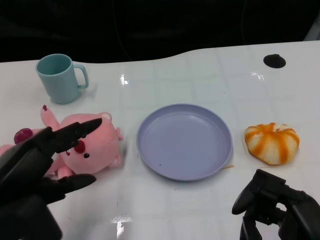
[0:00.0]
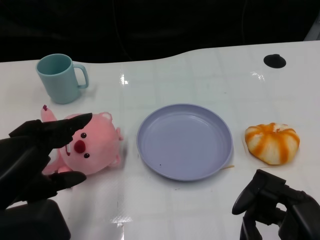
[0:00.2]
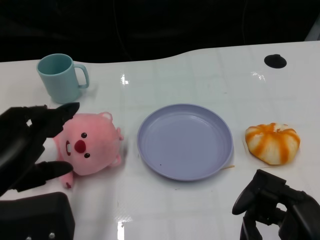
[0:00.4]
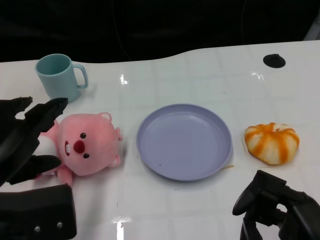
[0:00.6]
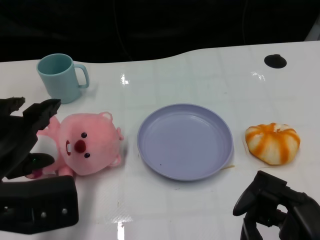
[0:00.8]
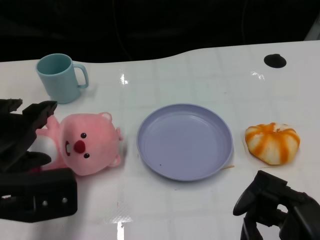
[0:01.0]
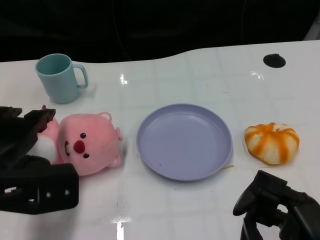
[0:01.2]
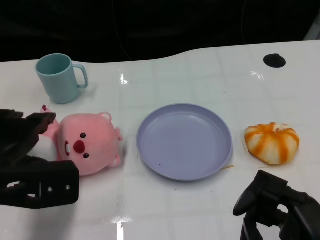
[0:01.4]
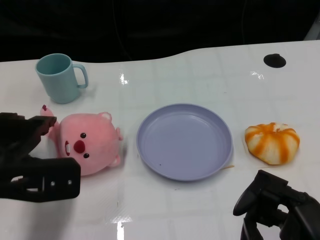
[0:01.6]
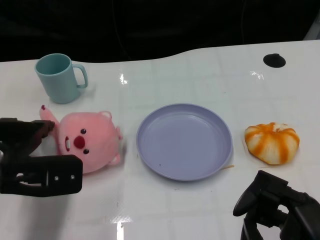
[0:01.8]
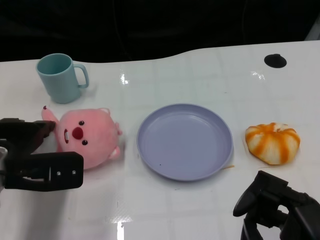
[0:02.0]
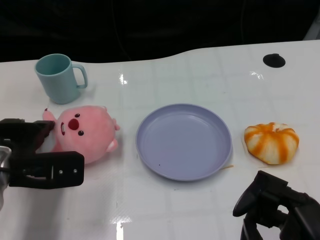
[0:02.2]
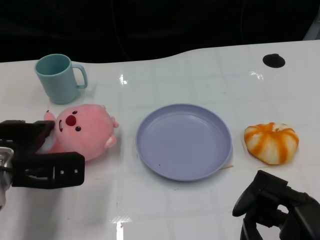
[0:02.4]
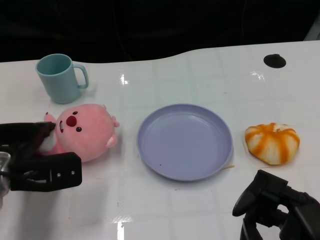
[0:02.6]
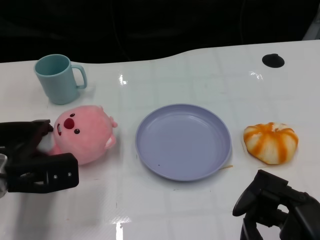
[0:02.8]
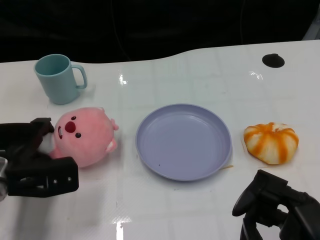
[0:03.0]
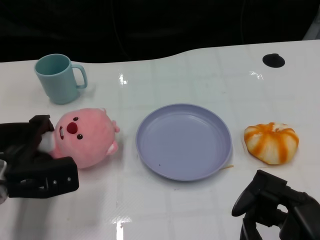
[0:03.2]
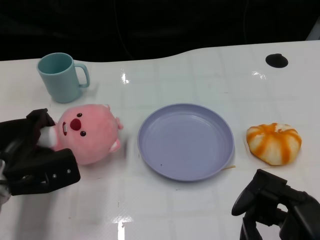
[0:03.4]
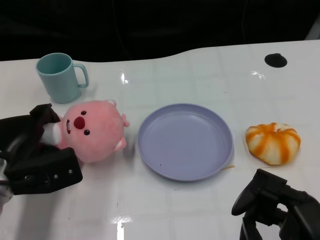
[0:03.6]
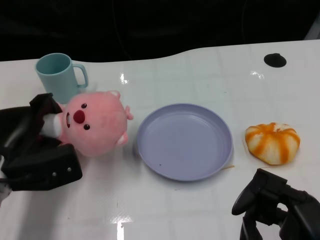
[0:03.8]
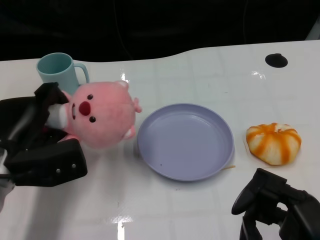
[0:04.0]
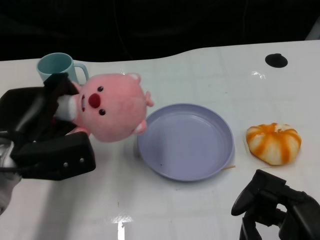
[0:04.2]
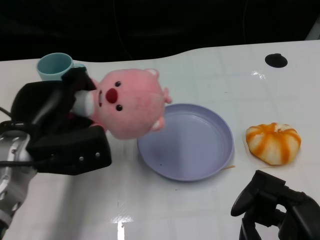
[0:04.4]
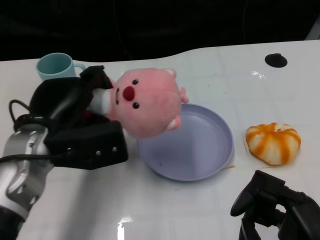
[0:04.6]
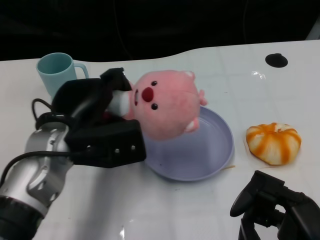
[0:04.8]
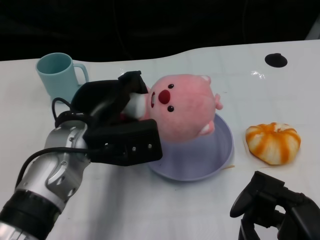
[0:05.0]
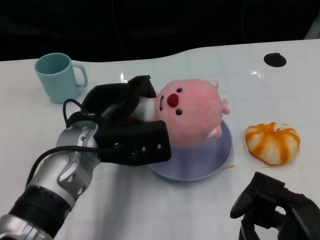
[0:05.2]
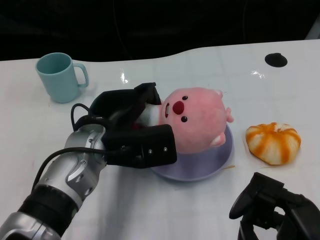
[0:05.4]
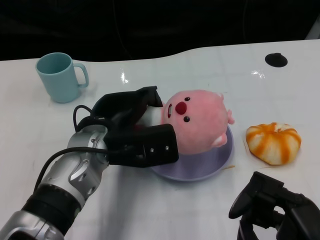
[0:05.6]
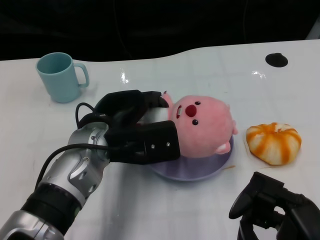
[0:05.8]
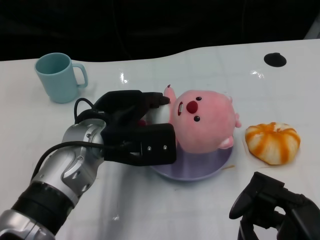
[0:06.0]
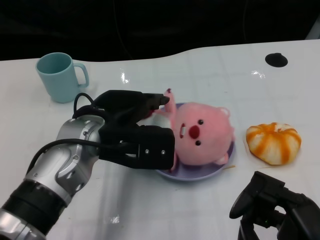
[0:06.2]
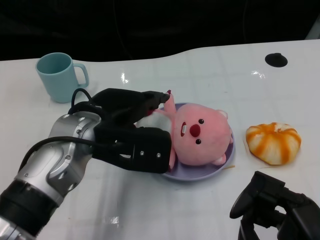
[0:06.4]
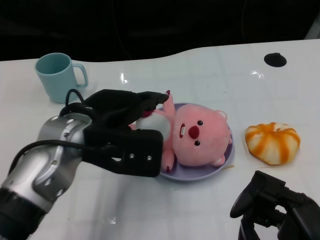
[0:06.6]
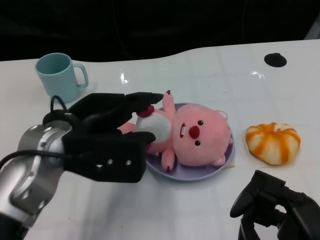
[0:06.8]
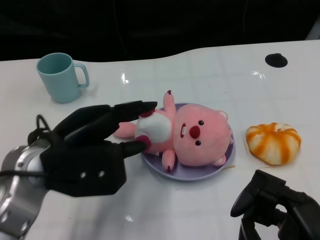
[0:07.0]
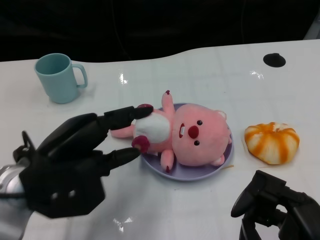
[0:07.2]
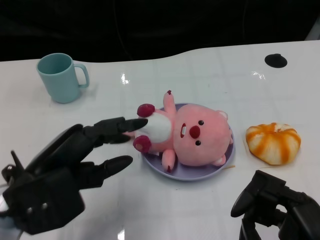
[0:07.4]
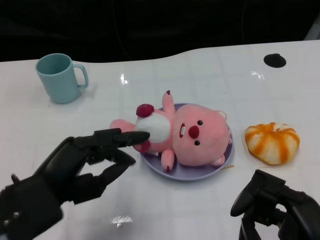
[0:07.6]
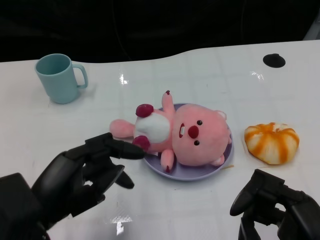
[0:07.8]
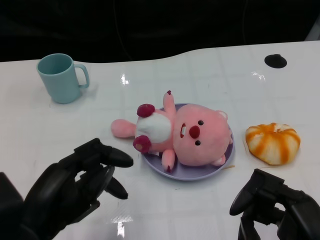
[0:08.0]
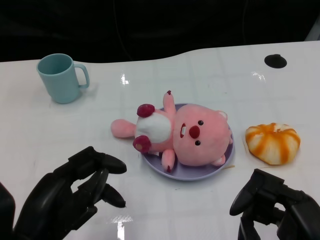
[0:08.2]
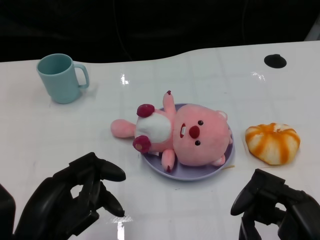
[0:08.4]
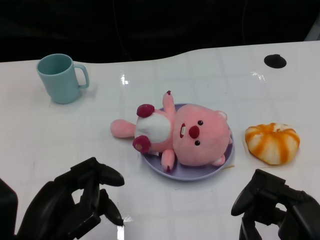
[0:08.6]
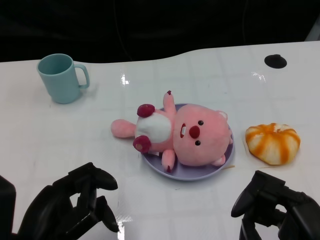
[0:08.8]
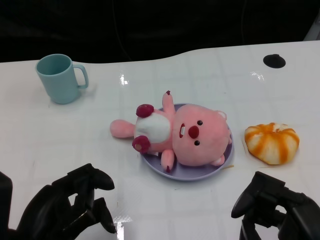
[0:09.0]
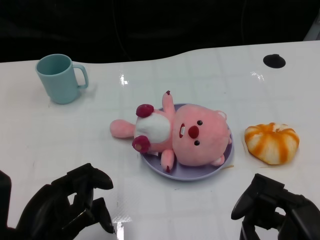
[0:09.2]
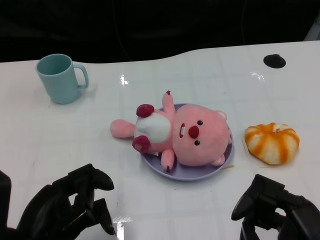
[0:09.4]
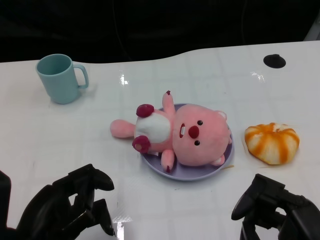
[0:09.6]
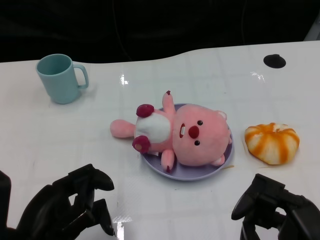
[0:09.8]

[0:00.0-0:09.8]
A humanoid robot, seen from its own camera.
Task of the whole recording: Pick up the doll on one side of the plate and place it into the plate.
Step, 0:00.0 to 0:03.8: Grasp the pink doll with the left gripper.
Step, 0:04.0 to 0:06.2: Place the pink doll into the plate with the left gripper.
0:00.0 to 0:01.4: The left hand shifts about 5 cm forward.
0:01.4 to 0:02.8: The left hand moves downward and forward, about 10 cm.
0:02.8 to 0:04.2: The left hand goes roughly 5 cm upward.
0:04.2 to 0:05.6: The left hand travels to the right by roughly 10 cm.
0:05.6 to 0:07.0: The left hand heads to the left, covering some 5 cm.
0:07.0 to 0:08.4: The left hand shifts about 10 cm backward.
0:08.4 to 0:09.8: The hands move only a little.

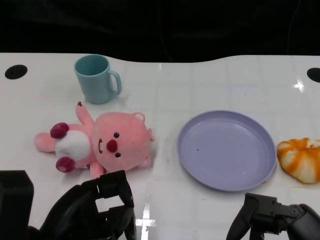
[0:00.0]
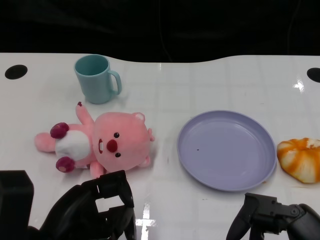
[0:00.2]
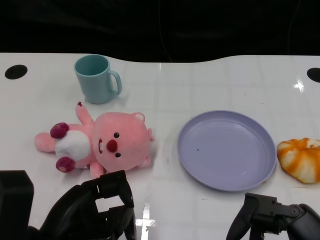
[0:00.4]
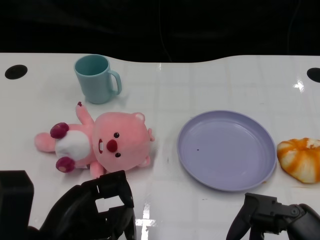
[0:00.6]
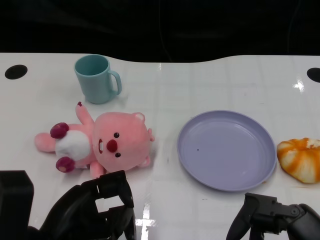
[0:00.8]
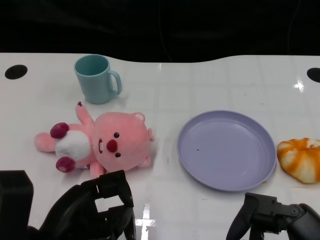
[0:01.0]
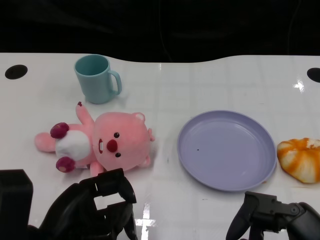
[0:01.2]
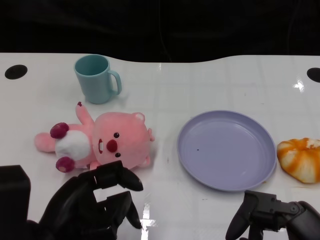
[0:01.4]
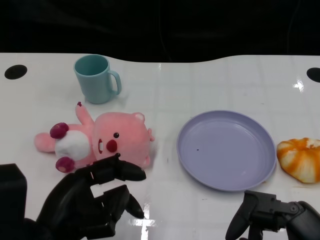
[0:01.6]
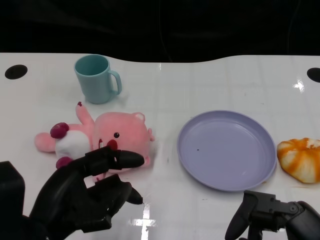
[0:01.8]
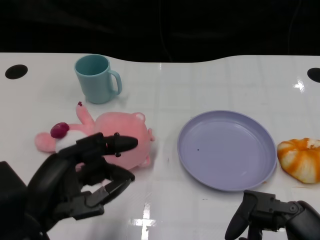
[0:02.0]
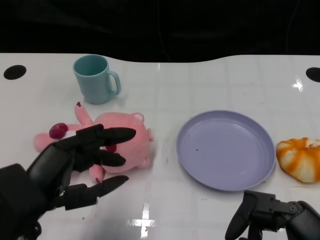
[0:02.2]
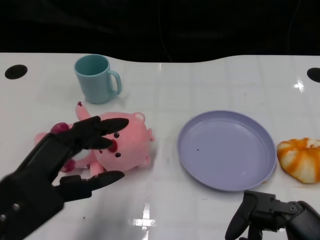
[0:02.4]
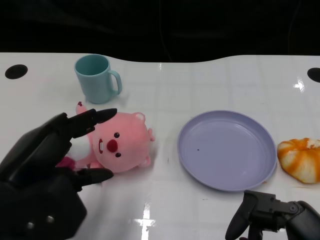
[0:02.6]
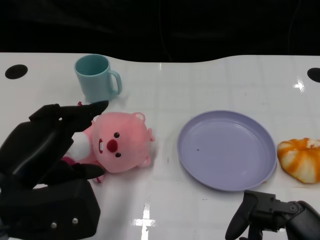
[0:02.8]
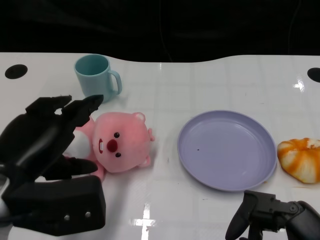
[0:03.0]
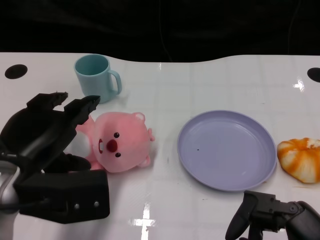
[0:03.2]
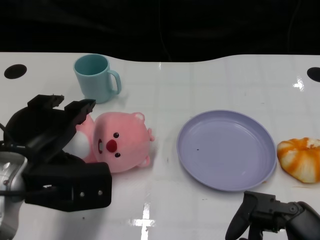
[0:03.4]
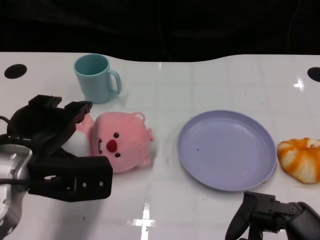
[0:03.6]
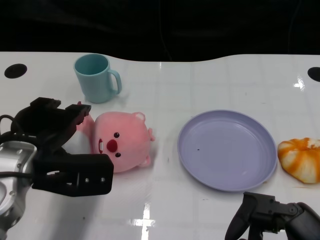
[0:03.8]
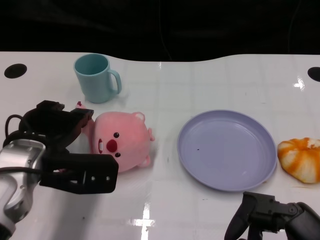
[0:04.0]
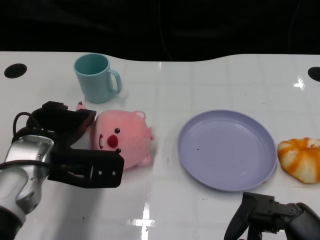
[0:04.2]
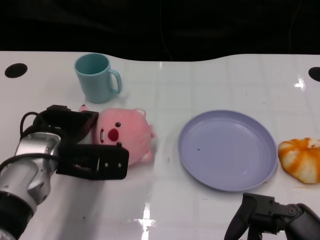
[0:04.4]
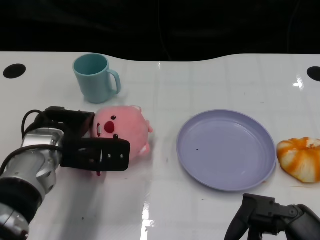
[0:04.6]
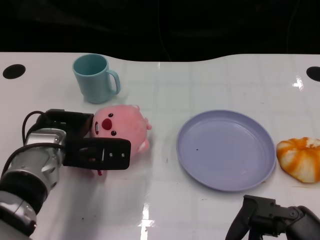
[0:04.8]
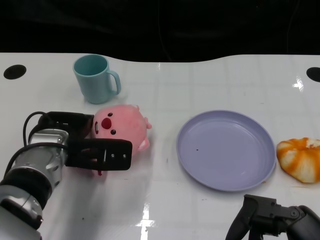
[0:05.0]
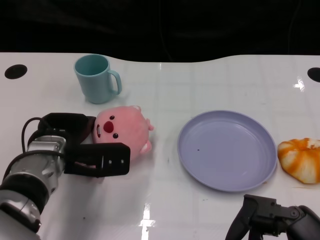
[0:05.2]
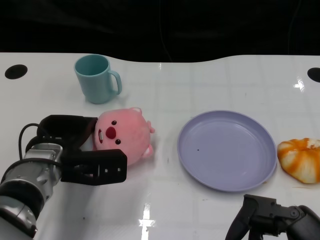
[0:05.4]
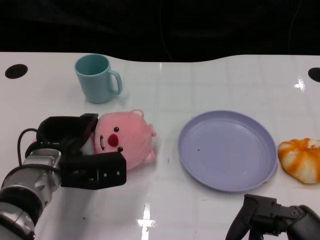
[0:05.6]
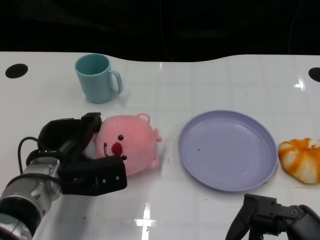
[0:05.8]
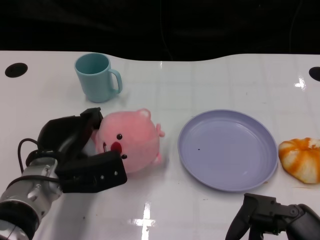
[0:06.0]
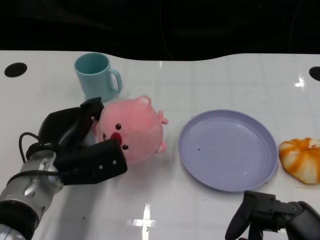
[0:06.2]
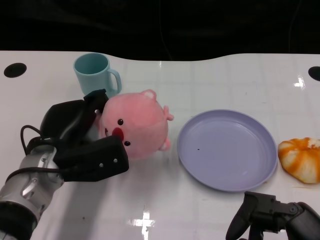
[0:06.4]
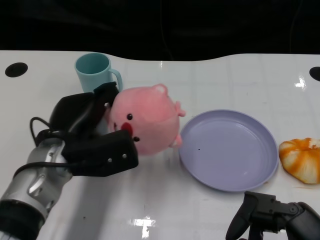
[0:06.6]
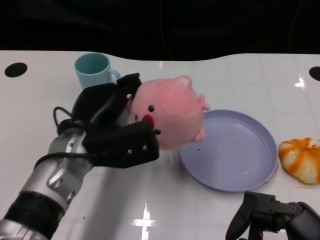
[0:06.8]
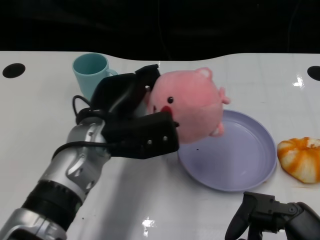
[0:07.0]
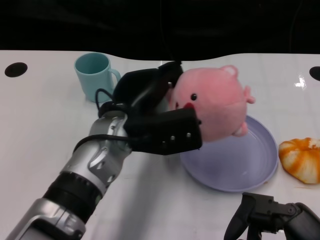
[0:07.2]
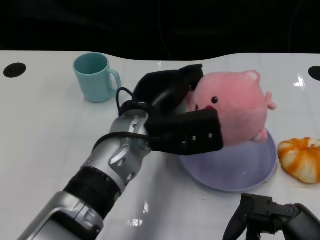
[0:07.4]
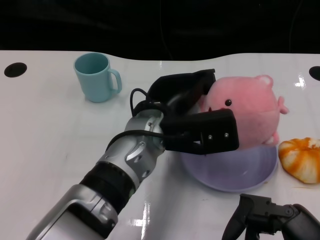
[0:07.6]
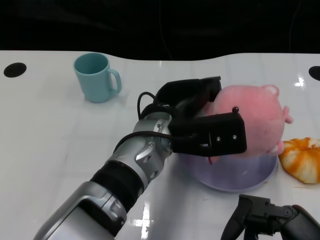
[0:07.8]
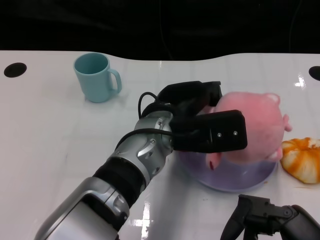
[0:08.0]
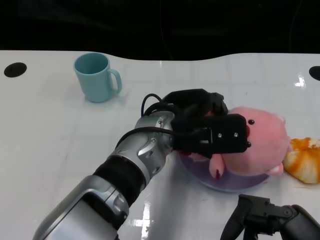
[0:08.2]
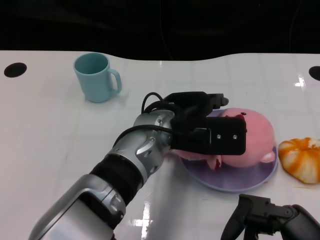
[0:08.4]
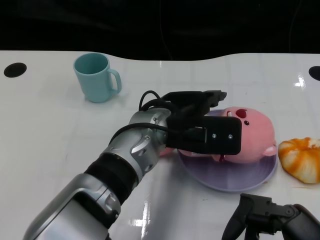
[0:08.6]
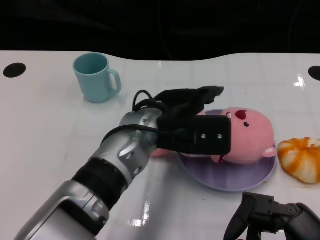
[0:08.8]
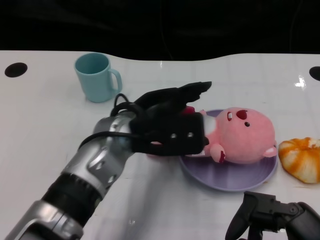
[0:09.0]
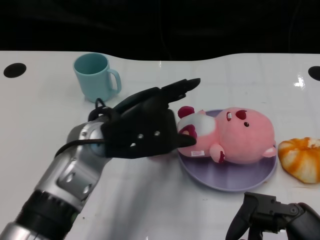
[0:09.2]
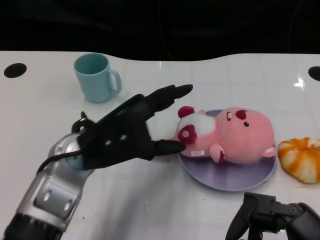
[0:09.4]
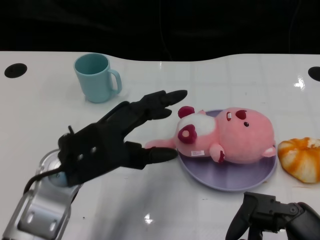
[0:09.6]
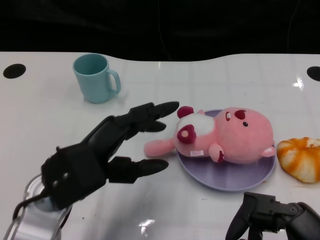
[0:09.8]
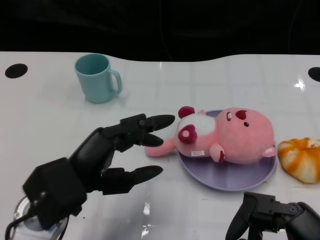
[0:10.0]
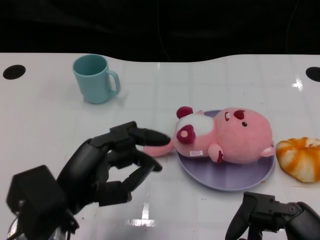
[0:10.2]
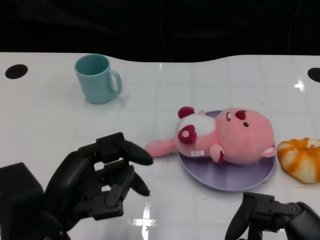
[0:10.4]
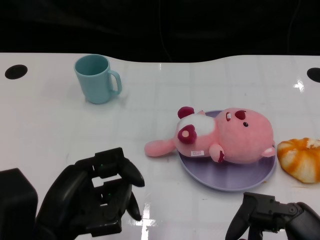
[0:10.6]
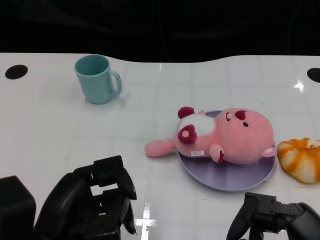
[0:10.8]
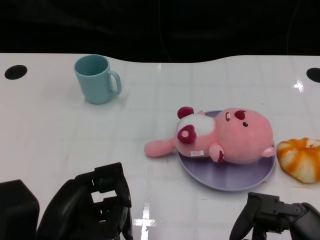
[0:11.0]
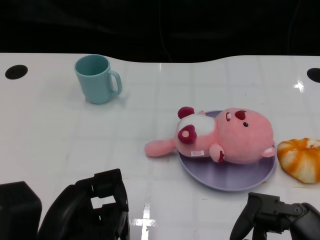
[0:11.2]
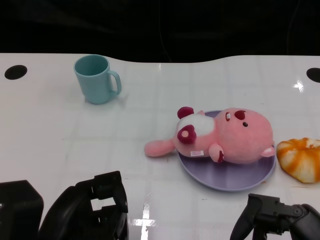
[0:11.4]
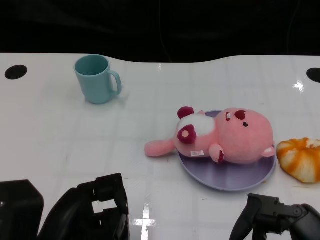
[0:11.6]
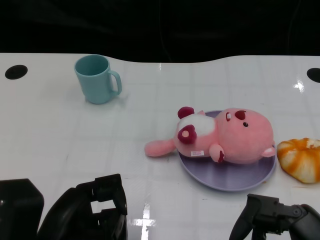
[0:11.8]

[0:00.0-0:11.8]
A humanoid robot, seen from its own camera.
Task of the whole recording: Pick up the doll on one side of the plate and place it into the plate.
Step, 0:01.2 to 0:06.0: Grasp the pink doll with the left gripper.
Step, 0:06.2 to 0:08.8: Place the pink doll into the plate with the left gripper.
0:01.4 to 0:03.0: The left hand moves upward, about 5 cm.
0:03.0 to 0:04.4: The left hand heads forward and downward, covering approximately 10 cm.
0:04.4 to 0:06.0: The left hand moves downward, some 5 cm.
0:06.0 to 0:07.4: The left hand is displaced to the right and upward by roughly 15 cm.
0:08.8 to 0:10.4: The left hand is displaced to the left and backward by approximately 20 cm.
0:10.4 to 0:11.8: The hands move only a little.
